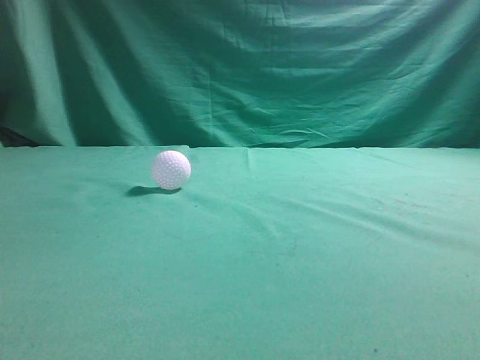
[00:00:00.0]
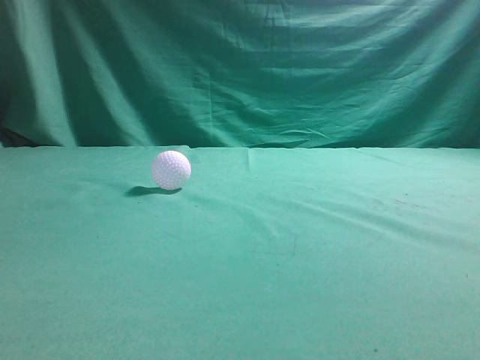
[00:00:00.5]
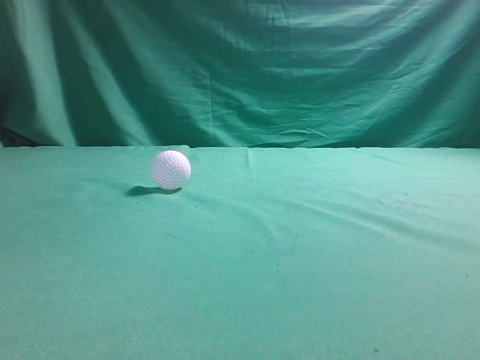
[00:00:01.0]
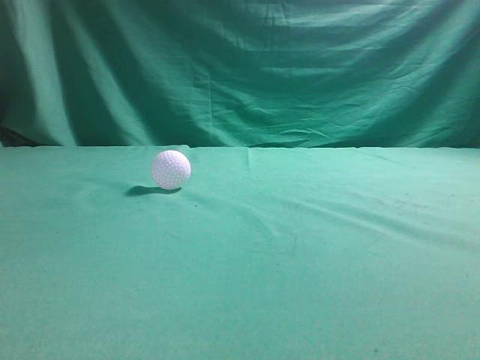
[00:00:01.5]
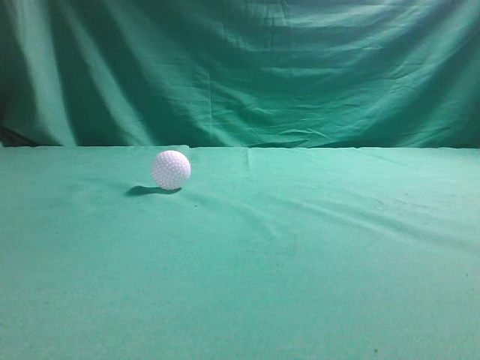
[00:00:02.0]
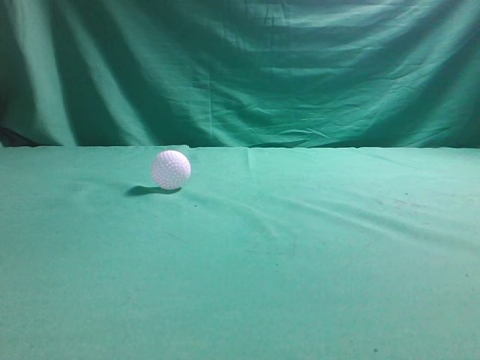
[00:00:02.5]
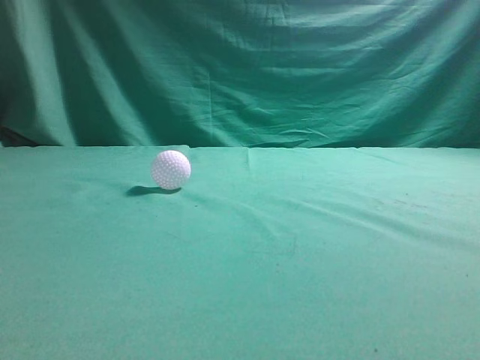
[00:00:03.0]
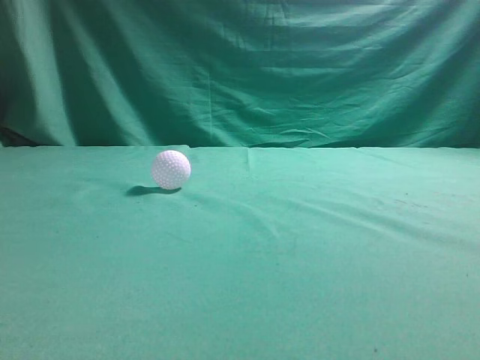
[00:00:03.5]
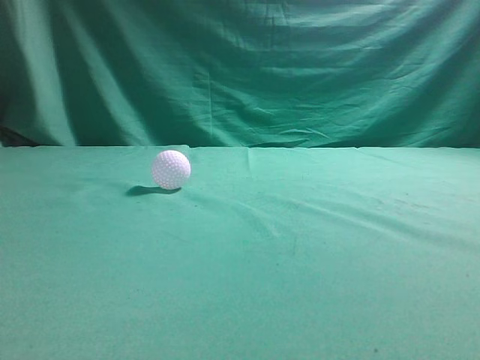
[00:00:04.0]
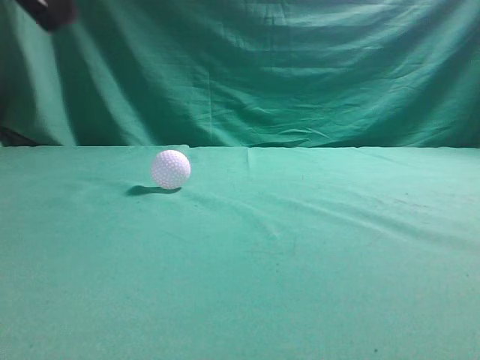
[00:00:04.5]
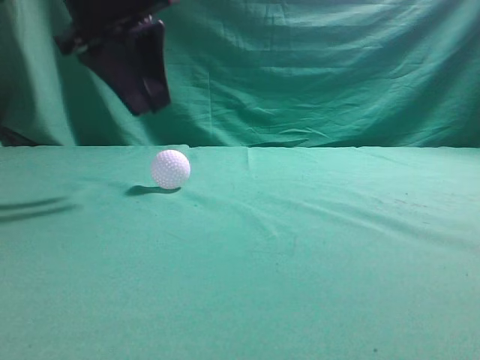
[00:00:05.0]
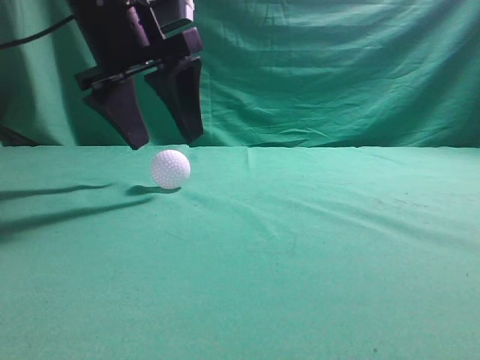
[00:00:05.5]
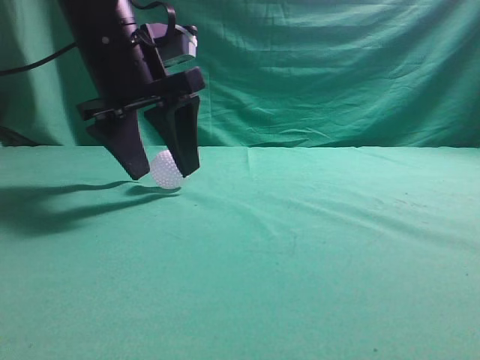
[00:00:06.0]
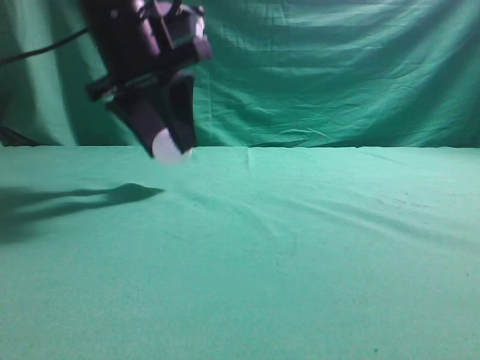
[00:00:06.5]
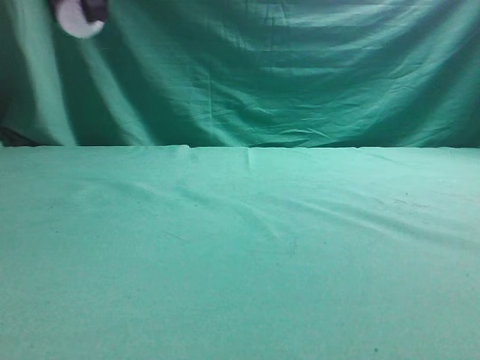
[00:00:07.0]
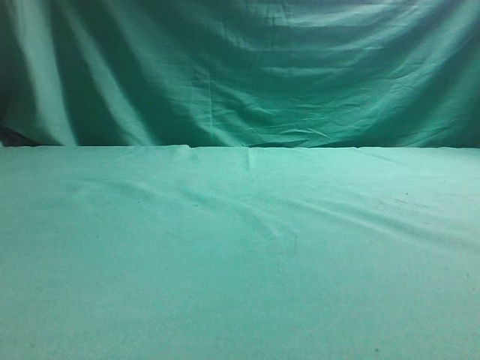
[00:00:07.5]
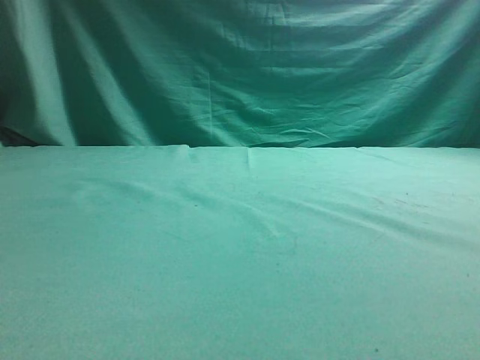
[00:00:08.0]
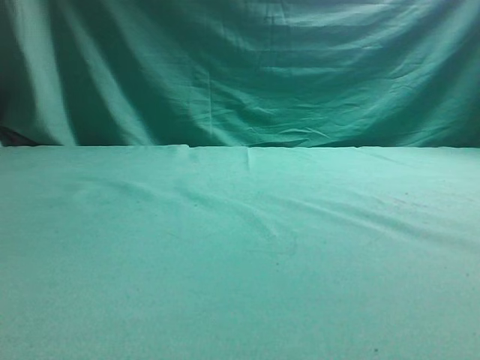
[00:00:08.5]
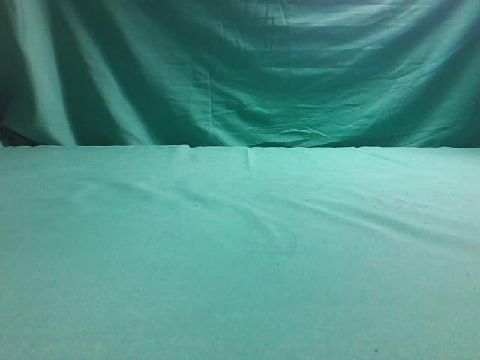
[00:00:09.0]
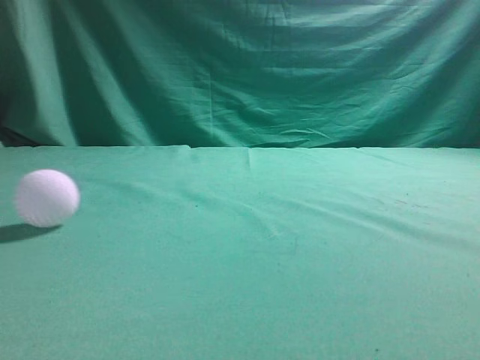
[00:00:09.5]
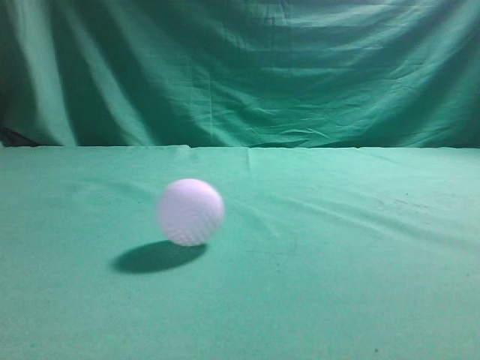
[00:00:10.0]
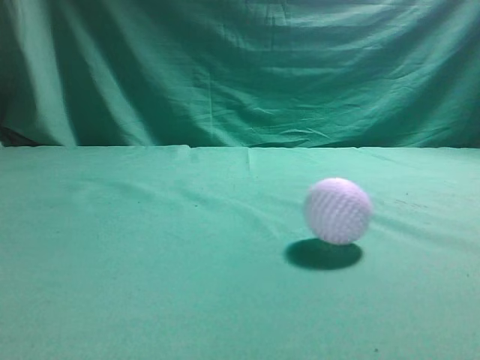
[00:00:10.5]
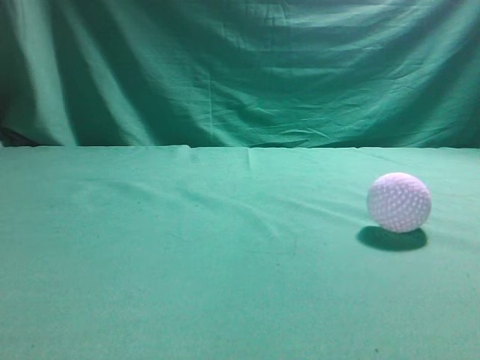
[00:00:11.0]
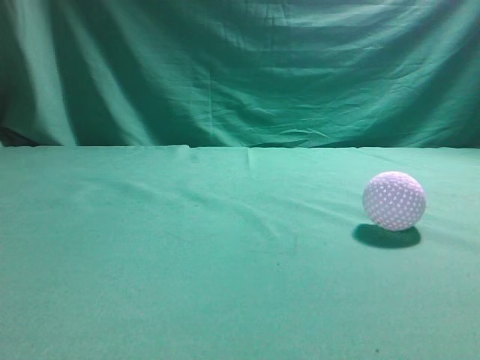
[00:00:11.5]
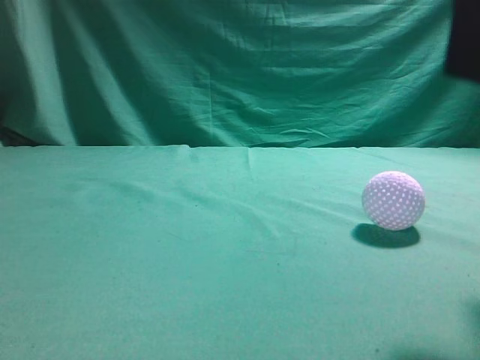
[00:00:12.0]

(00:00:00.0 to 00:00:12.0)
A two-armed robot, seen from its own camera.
Task of the whole recording: pick up the ball and place it on the plate, then pick up the ball from the plate and put it in the center of the table.
Step, 00:00:00.0 - 00:00:06.0: Grab the spherical object with your left arm.
Step, 00:00:06.5 - 00:00:08.5: Place the sphere on the white object.
00:00:04.0 - 00:00:06.0: The left gripper heads forward, to the right and downward, covering some 30 cm, and opens.
00:00:06.0 - 00:00:08.0: The left gripper travels to the left by about 25 cm, and closes.
00:00:08.0 - 00:00:10.0: The left gripper heads upward, to the right and backward, covering about 25 cm, and closes its fingers.
00:00:10.0 - 00:00:12.0: The right gripper shifts about 20 cm to the left, forward and upward, and opens, while the left gripper shifts roughly 25 cm downward and backward.

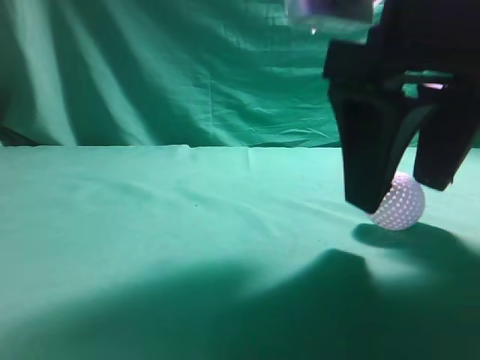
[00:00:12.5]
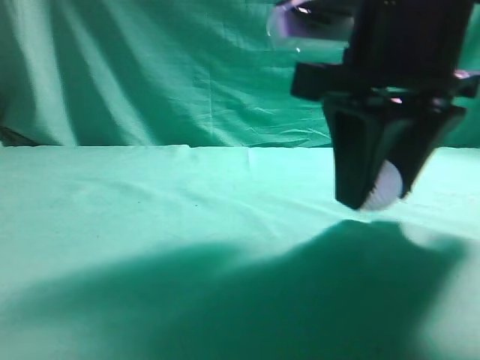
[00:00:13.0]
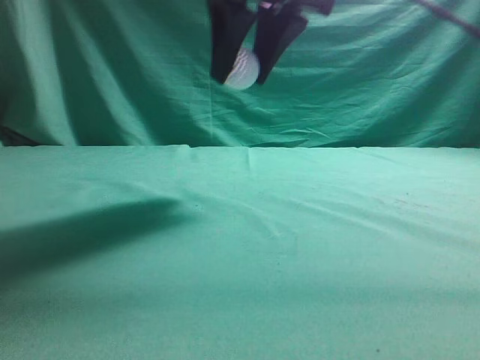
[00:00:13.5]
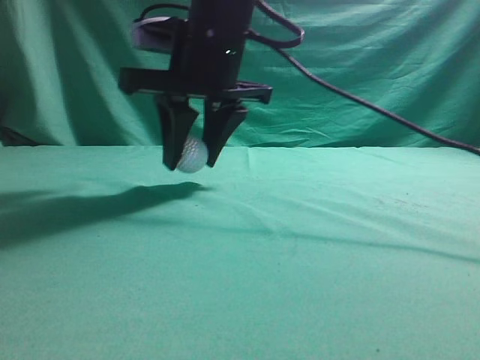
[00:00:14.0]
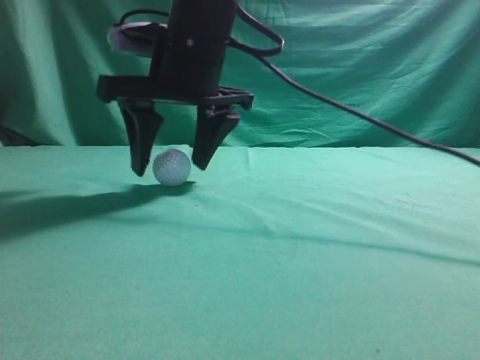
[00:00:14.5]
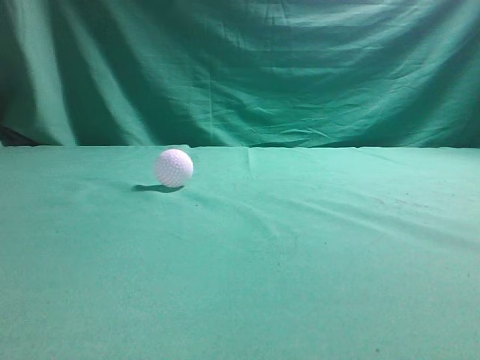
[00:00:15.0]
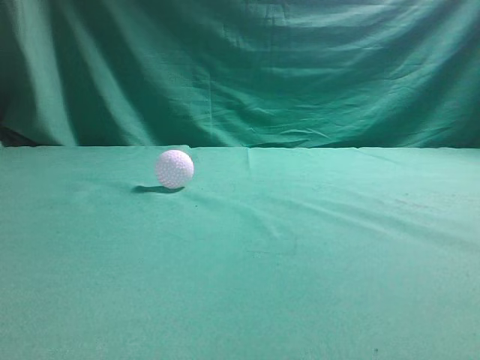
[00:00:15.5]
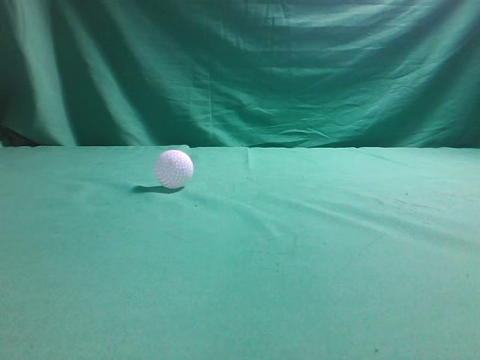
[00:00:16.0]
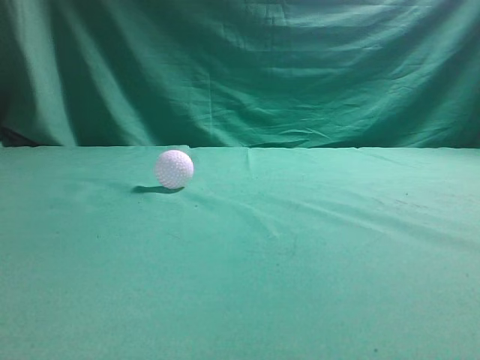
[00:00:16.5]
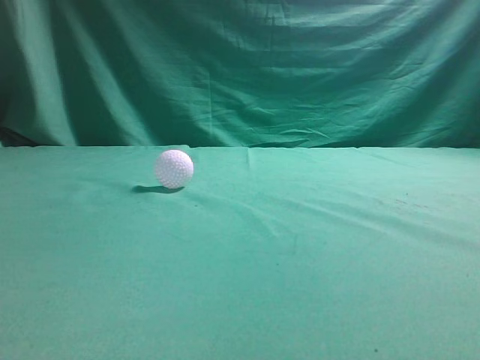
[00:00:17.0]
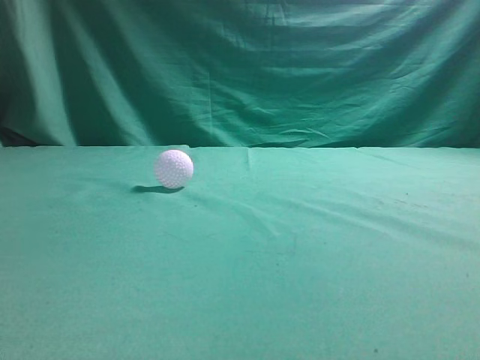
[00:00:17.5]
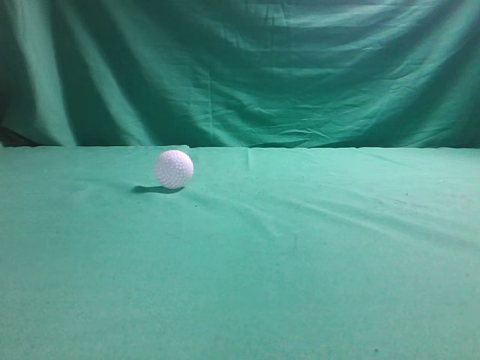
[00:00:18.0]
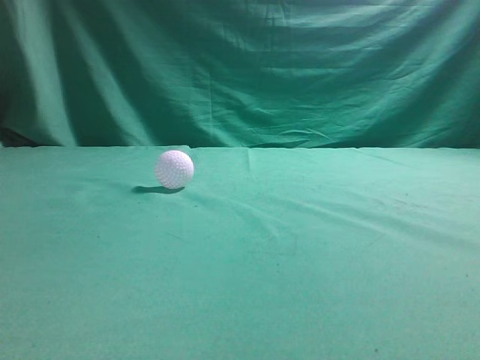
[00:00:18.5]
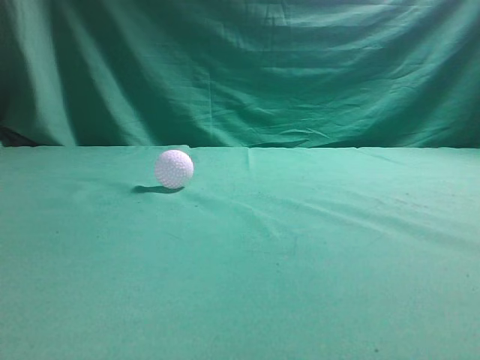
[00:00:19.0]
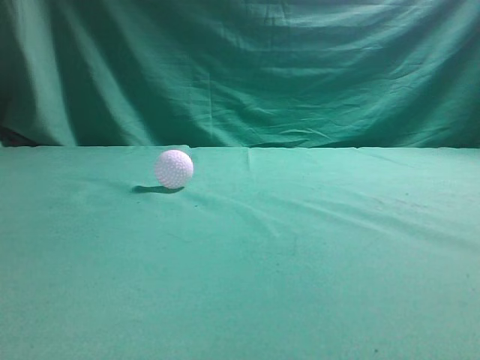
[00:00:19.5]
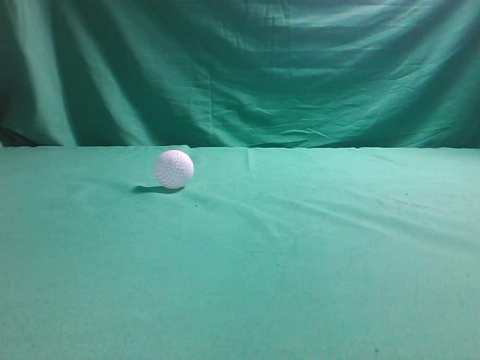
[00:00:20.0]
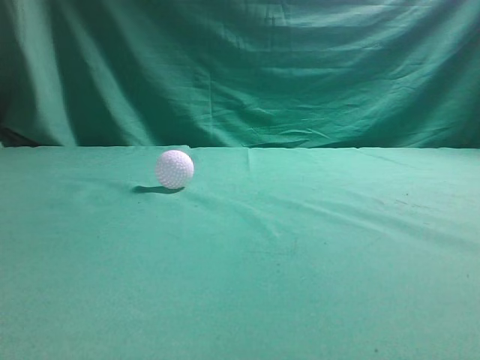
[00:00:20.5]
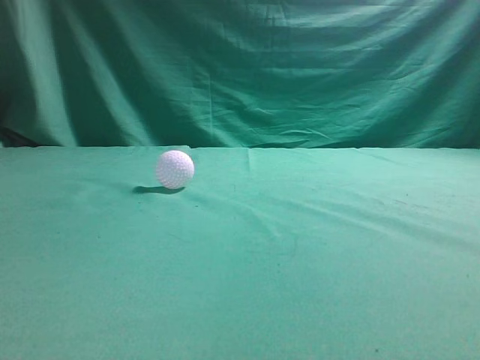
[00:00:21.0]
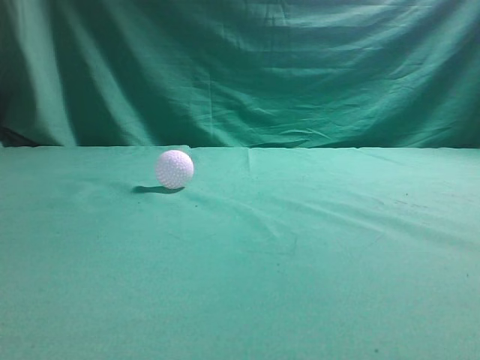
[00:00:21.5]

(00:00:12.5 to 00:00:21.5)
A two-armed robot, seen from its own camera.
Task of the whole recording: pick up the ball and place it on the plate, then pick up the ball from the plate and put it in the center of the table.
Step, 00:00:13.0 - 00:00:14.0: Put the picked-up object on the table.
00:00:12.5 - 00:00:14.5: The right gripper is displaced to the left and forward by approximately 20 cm, and closes and opens again.
00:00:14.5 - 00:00:17.0: The right gripper moves backward and to the right, approximately 40 cm, and closes up.
